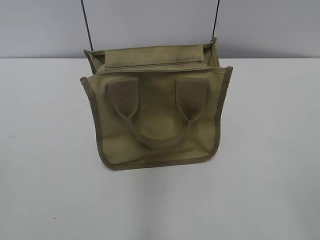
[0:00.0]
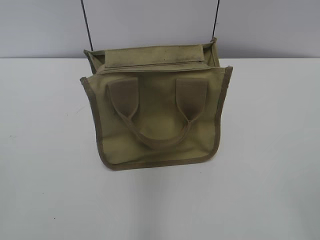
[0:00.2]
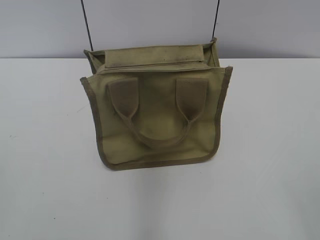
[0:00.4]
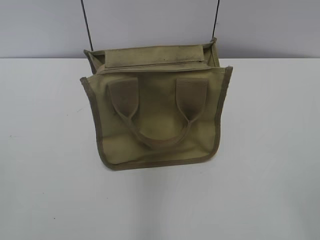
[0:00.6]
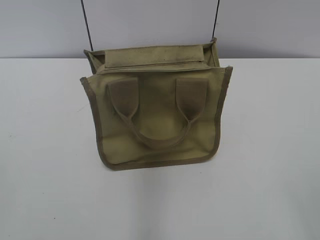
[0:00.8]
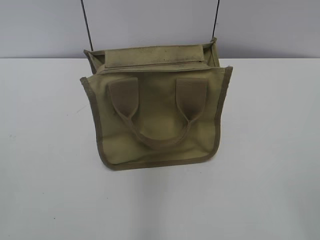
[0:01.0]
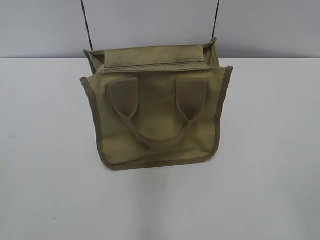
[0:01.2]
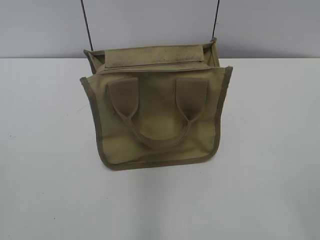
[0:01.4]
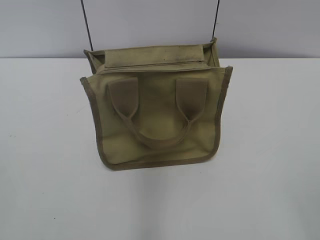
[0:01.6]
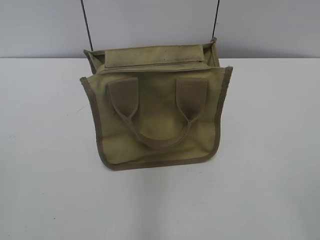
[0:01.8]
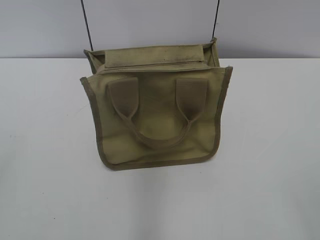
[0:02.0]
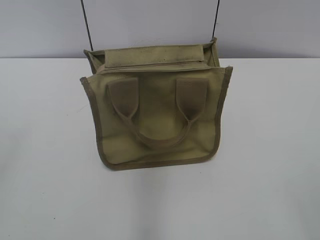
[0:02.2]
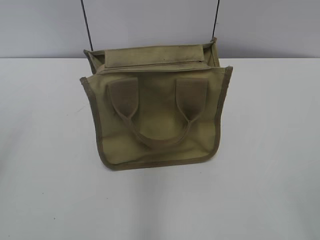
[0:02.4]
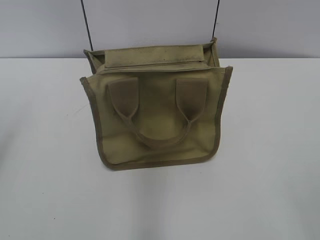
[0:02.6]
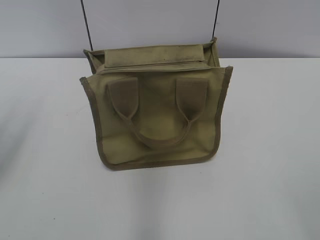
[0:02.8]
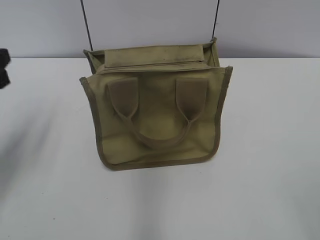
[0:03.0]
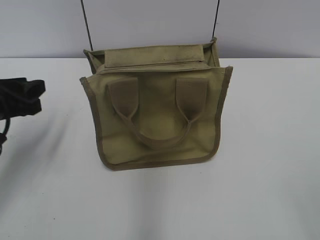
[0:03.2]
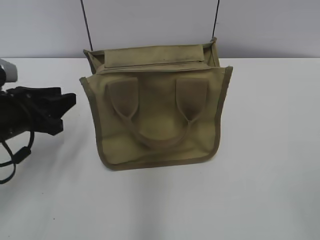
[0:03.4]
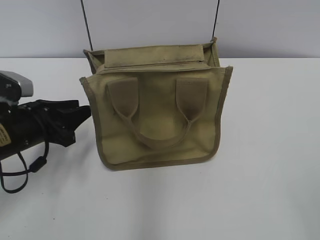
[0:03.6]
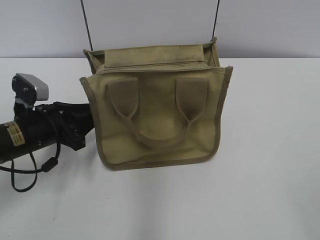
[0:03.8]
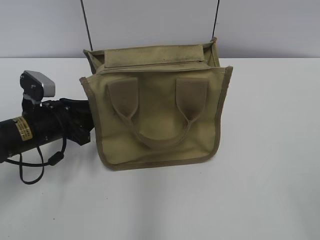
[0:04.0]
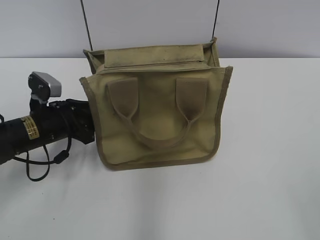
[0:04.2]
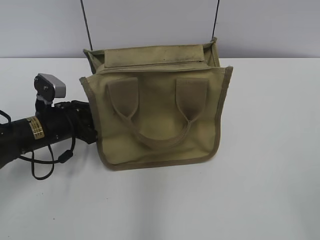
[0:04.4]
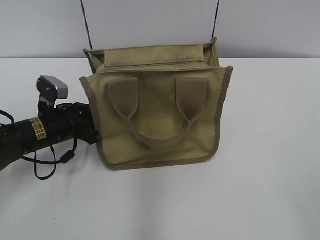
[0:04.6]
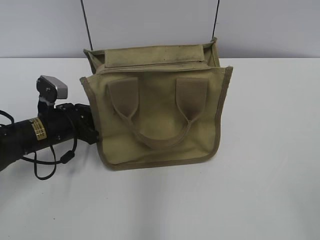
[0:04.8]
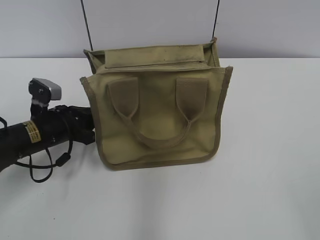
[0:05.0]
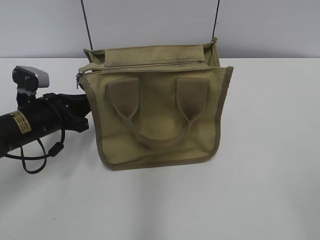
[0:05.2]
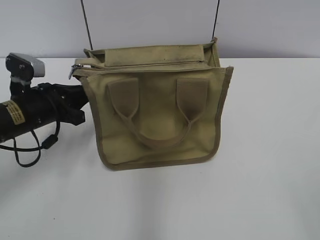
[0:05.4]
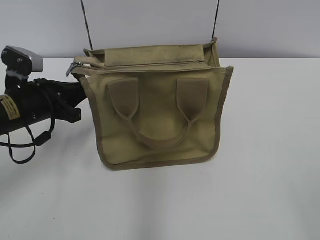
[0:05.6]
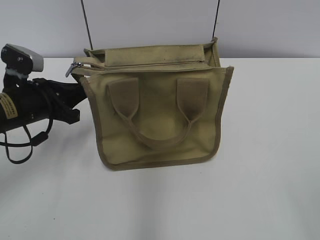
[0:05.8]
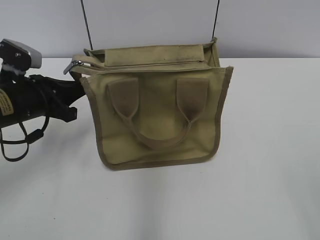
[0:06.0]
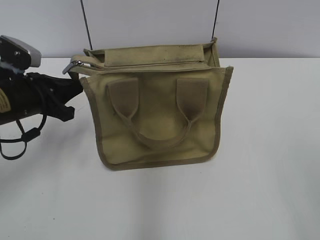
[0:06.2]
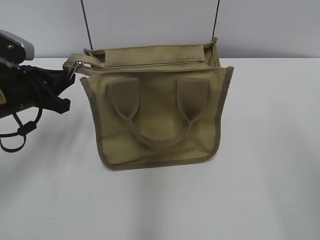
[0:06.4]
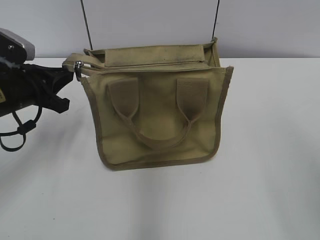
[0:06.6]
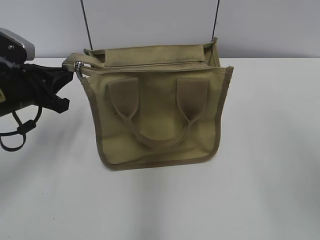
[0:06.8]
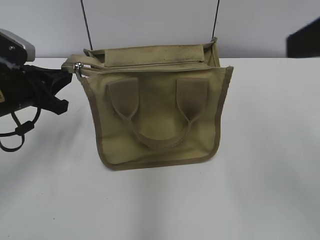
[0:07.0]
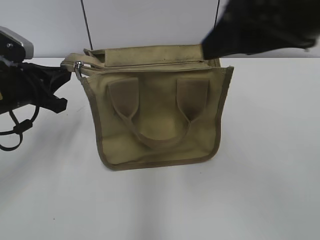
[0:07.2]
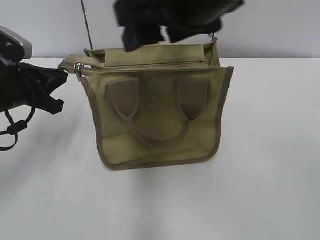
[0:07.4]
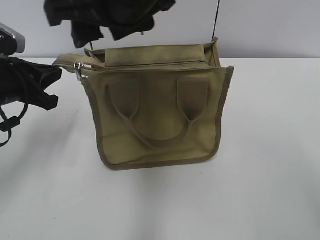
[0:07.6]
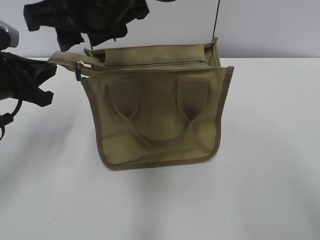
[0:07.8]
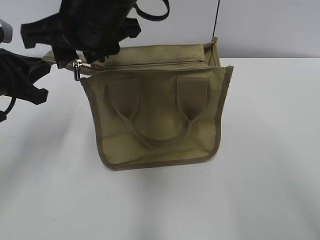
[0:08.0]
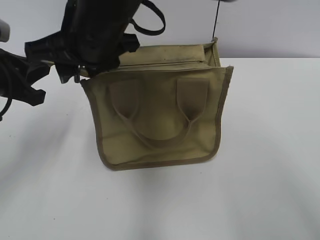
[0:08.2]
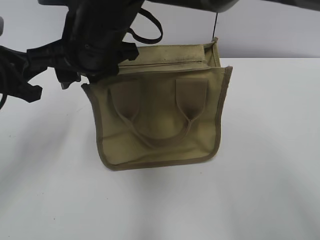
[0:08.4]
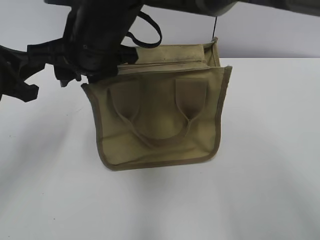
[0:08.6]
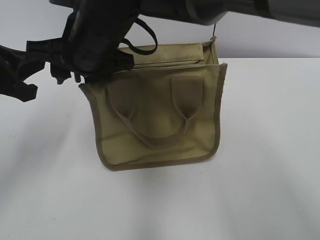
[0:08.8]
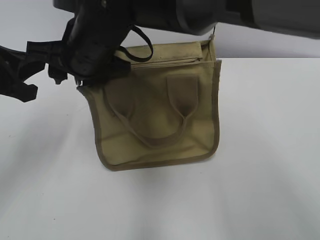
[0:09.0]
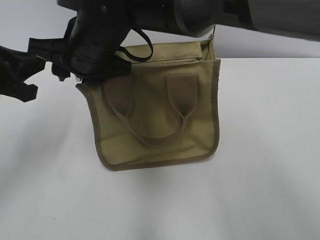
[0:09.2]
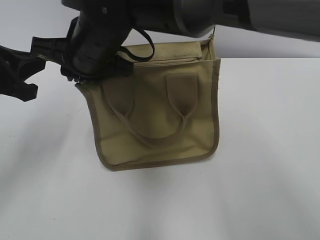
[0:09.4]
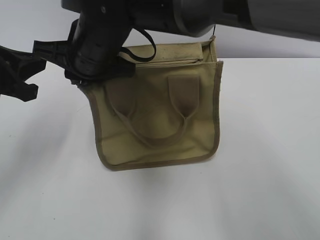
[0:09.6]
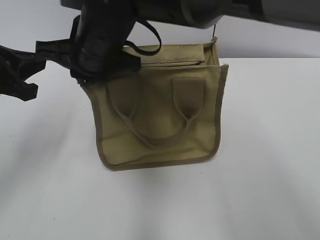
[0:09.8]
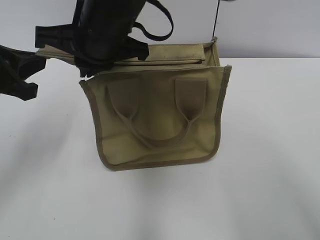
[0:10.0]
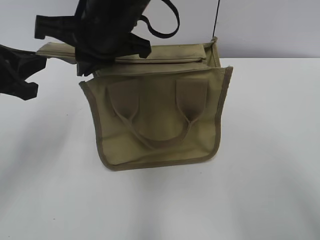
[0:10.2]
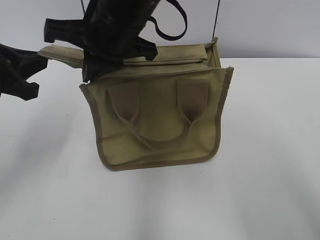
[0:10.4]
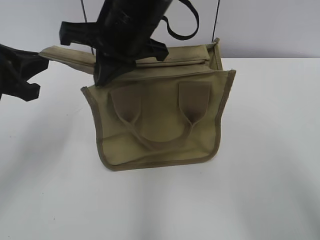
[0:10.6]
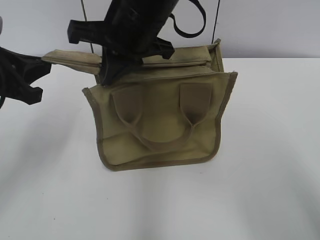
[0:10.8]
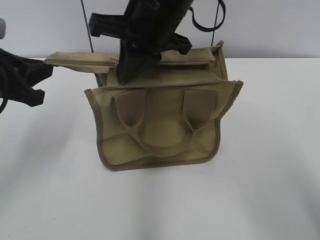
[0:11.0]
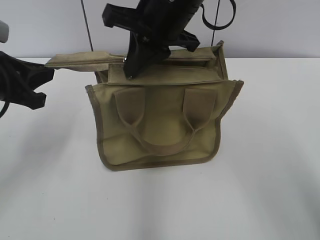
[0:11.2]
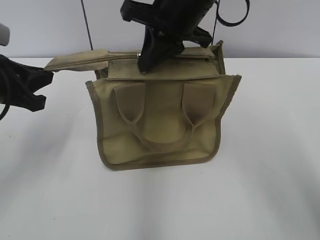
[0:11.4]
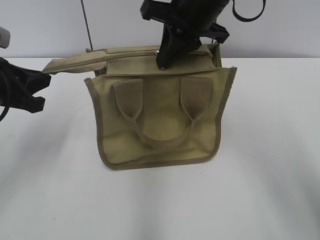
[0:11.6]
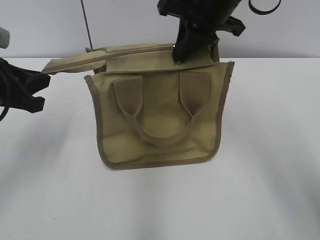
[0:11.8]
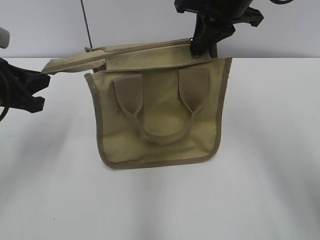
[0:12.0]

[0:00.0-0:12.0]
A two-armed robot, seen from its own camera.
0:01.6 to 0:03.0: The left gripper goes about 25 cm forward.
0:03.0 to 0:04.4: The left gripper goes roughly 20 cm downward, to the right and forward.
0:04.4 to 0:06.0: The left gripper moves upward, roughly 10 cm, and closes up.
0:06.0 to 0:07.6: The right gripper moves to the left and forward, some 40 cm.
0:07.6 to 0:09.0: The right gripper shifts roughly 10 cm downward and to the left. The left gripper changes place by approximately 5 cm.
0:09.0 to 0:10.4: The right gripper moves roughly 5 cm, and closes its fingers.
0:10.4 to 0:12.0: The right gripper goes roughly 15 cm to the right and forward.

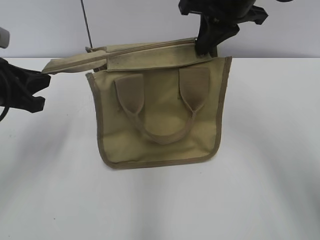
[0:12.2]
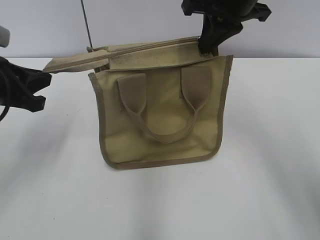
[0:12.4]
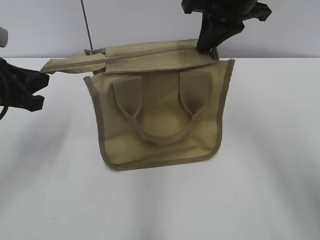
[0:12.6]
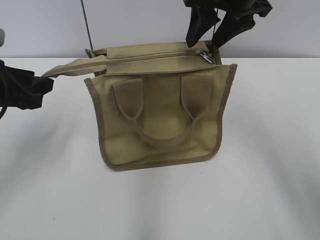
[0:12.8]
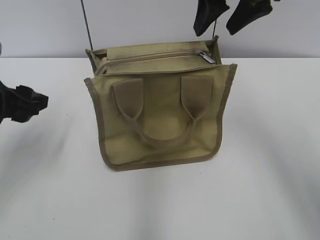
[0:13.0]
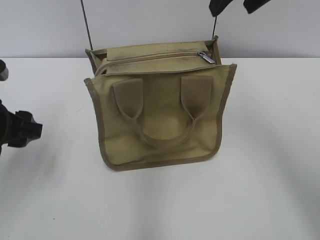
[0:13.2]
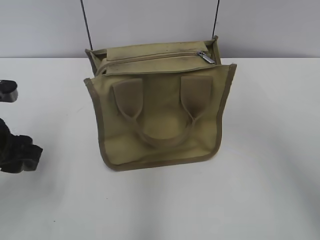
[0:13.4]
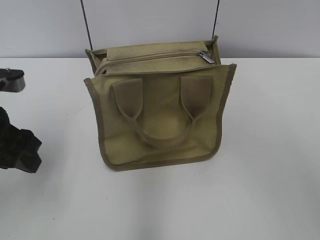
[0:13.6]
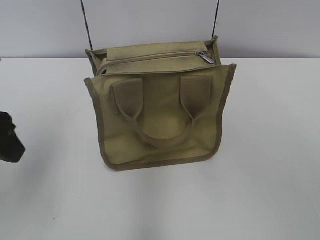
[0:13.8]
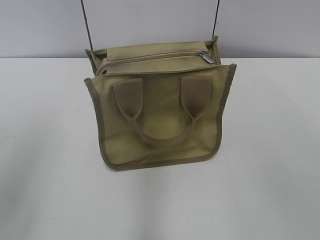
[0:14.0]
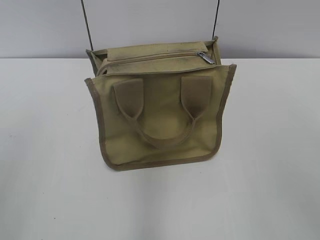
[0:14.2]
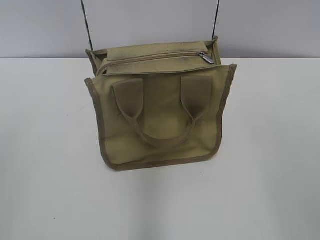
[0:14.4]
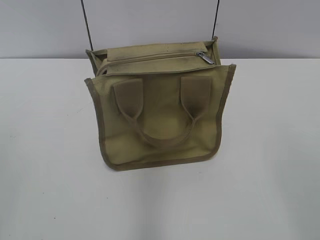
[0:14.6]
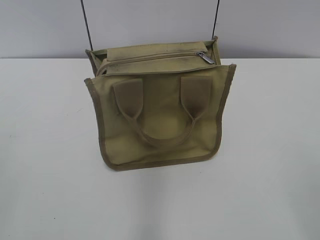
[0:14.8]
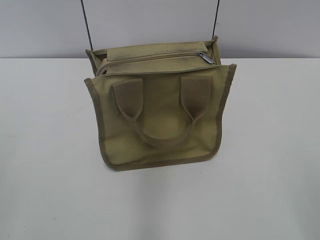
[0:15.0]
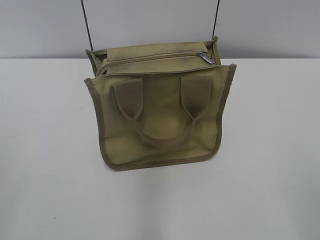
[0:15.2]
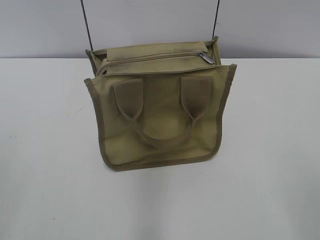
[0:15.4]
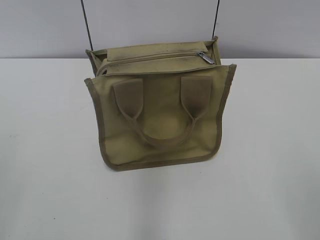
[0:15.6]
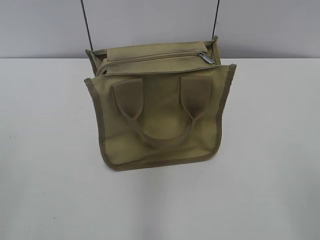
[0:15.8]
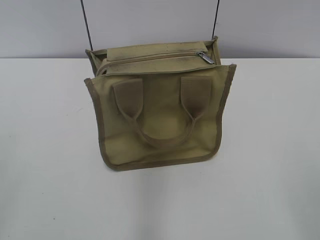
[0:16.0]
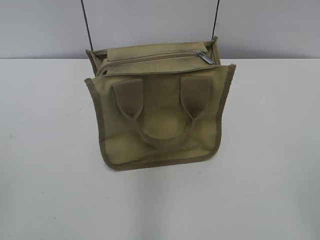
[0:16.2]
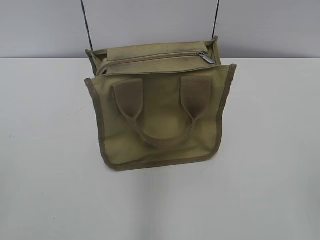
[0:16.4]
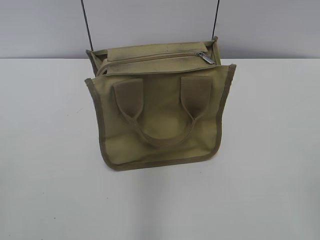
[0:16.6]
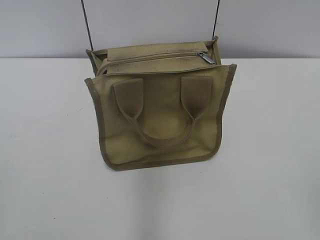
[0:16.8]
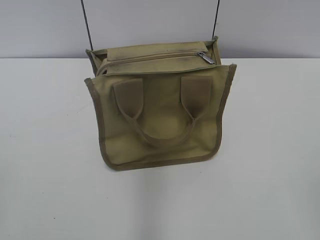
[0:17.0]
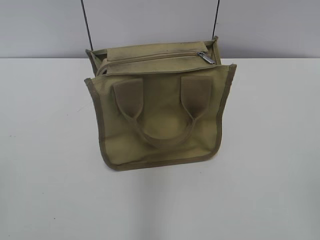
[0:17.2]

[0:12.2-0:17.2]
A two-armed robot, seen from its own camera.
0:12.2 to 0:13.8: The right gripper shifts some 25 cm upward and backward, and opens its fingers, while the left gripper heads backward and upward, covering about 10 cm, and opens its fingers.
0:13.8 to 0:15.6: The left gripper shifts some 20 cm backward and to the left.

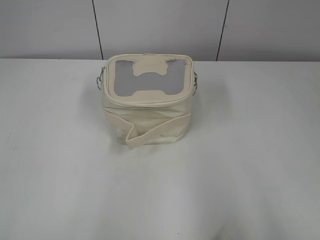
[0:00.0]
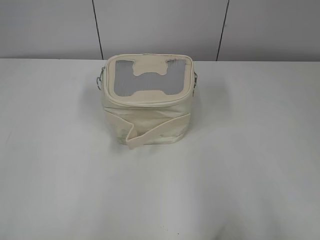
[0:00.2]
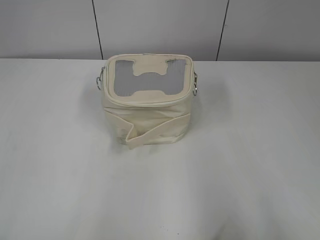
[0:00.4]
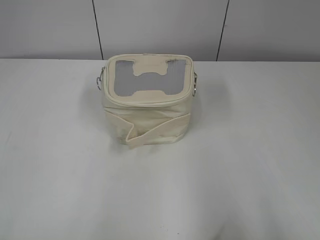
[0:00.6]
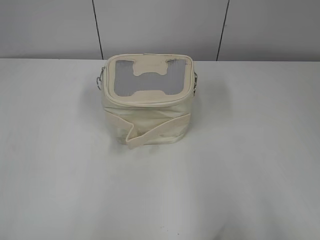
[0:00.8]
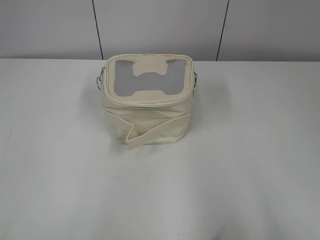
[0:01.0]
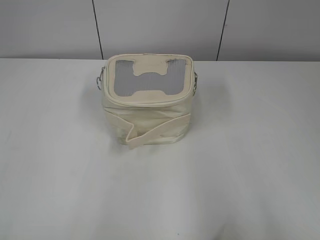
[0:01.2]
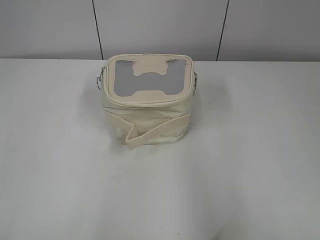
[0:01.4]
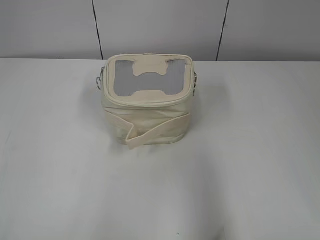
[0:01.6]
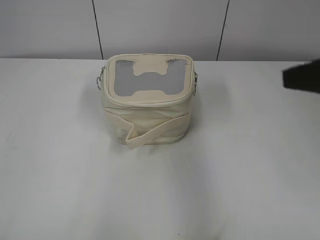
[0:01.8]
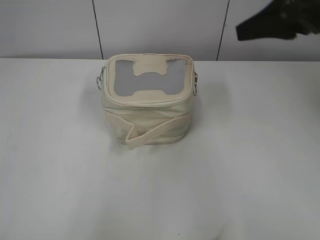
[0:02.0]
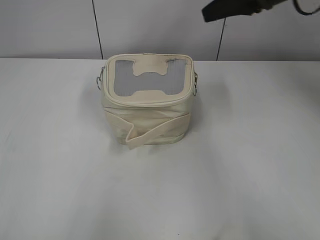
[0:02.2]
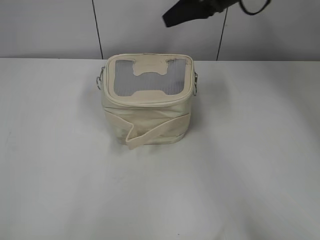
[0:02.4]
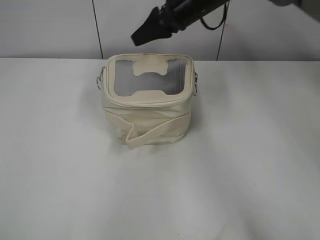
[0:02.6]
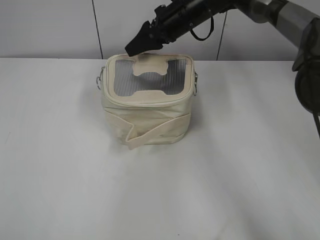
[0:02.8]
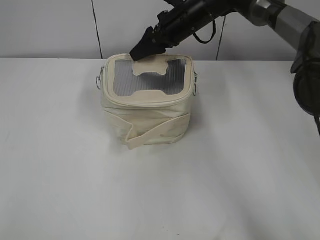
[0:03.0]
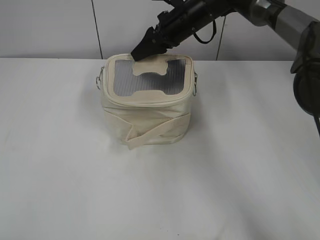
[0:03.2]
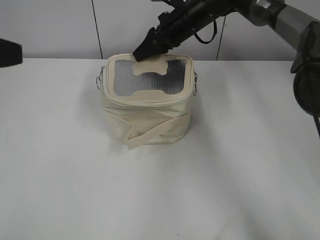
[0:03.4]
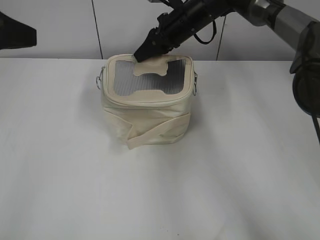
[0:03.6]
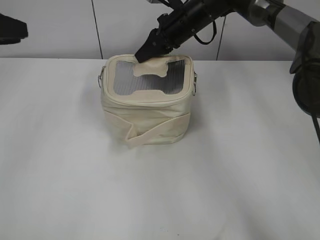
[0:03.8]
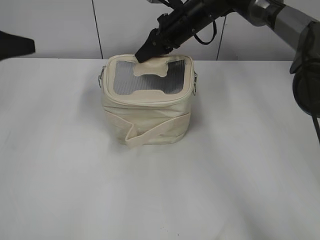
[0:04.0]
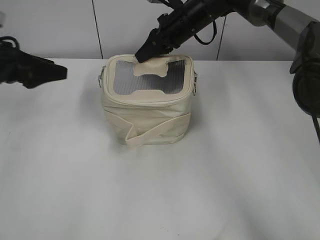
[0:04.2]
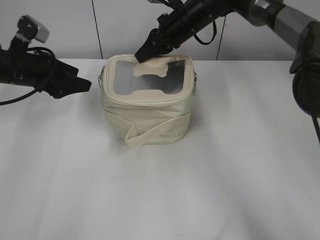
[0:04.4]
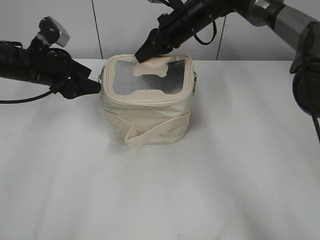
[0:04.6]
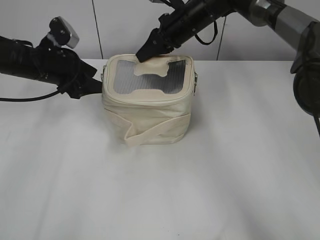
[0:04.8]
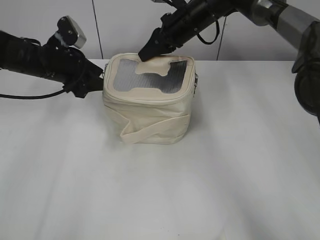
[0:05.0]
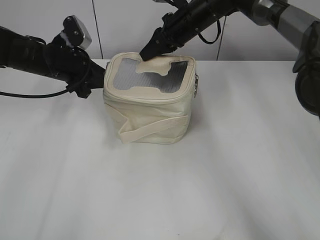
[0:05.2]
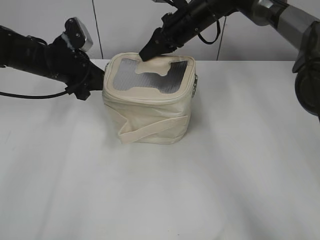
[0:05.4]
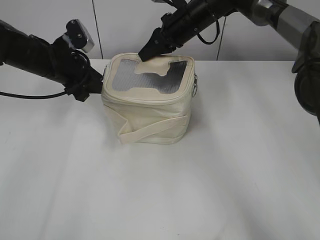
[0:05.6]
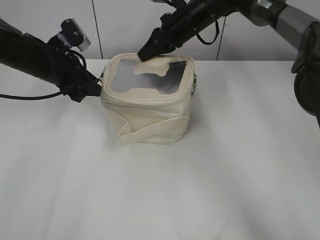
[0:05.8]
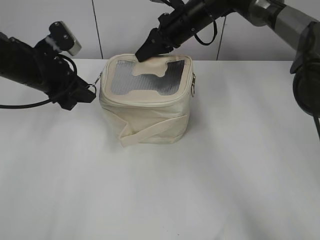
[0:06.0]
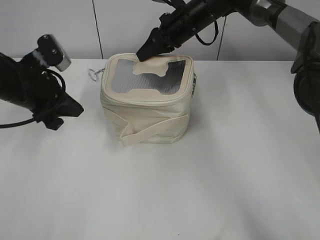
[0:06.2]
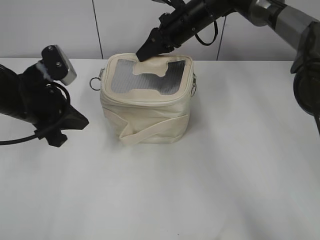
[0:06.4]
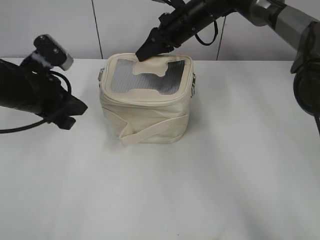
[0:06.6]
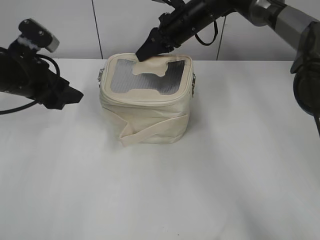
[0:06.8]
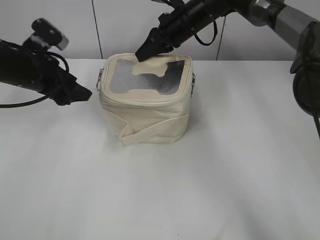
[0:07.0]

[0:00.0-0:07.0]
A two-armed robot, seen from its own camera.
0:01.4 to 0:02.8: The right gripper moves forward and to the left, approximately 50 cm.
0:02.8 to 0:04.2: The left gripper heads forward, covering roughly 30 cm, and opens up. Meanwhile the right gripper closes.
0:04.2 to 0:05.6: The left gripper goes some 10 cm to the right and forward, and closes its fingers.
0:05.6 to 0:07.0: The left gripper heads backward, covering about 5 cm, and opens its fingers.
